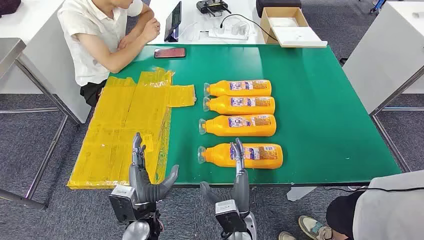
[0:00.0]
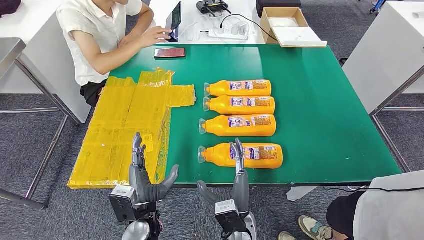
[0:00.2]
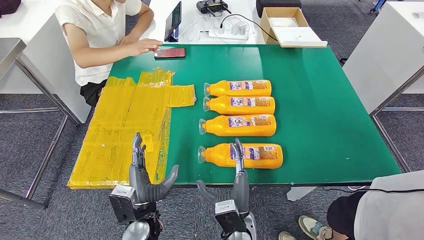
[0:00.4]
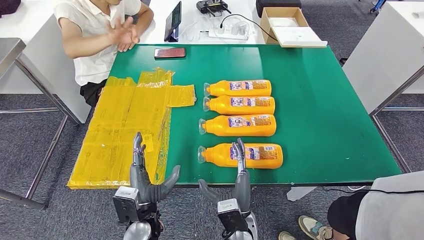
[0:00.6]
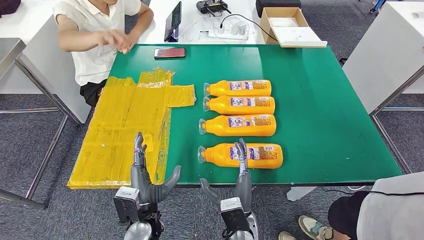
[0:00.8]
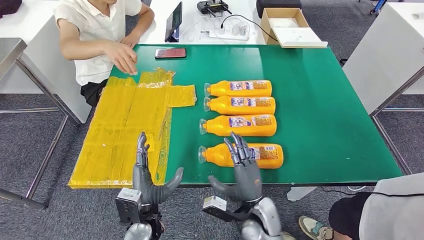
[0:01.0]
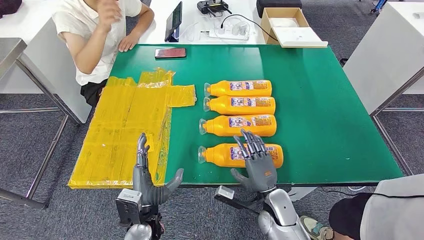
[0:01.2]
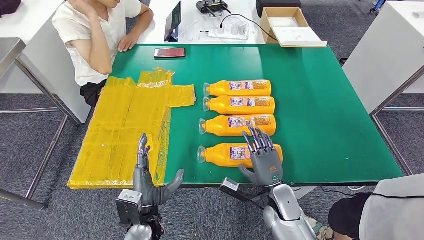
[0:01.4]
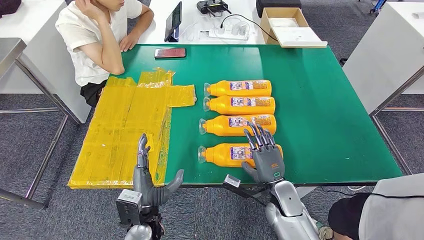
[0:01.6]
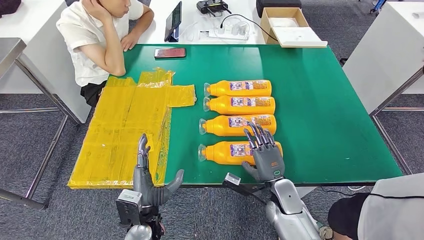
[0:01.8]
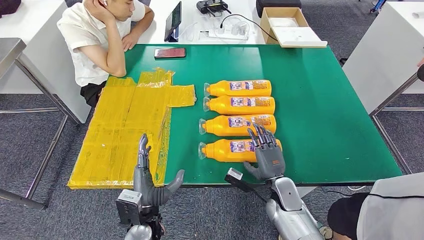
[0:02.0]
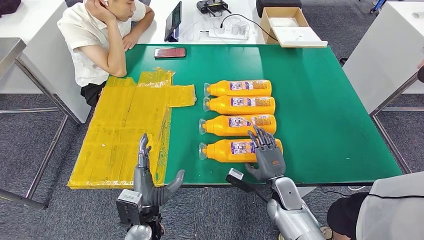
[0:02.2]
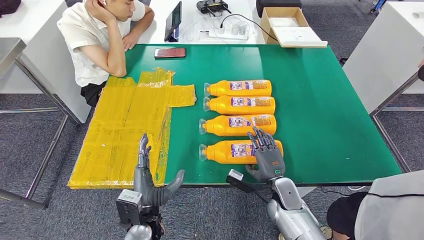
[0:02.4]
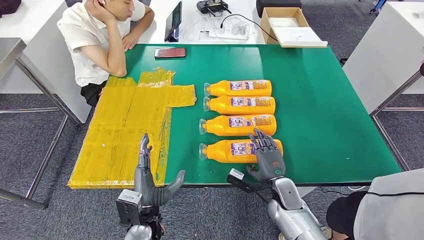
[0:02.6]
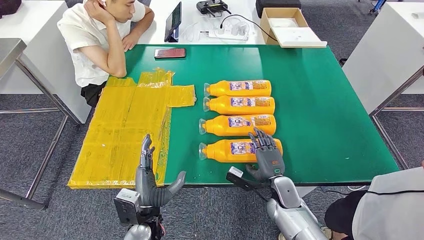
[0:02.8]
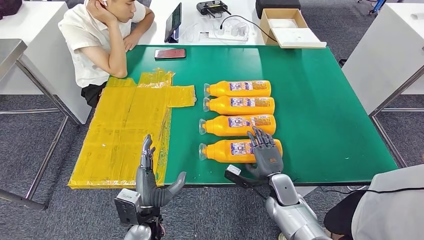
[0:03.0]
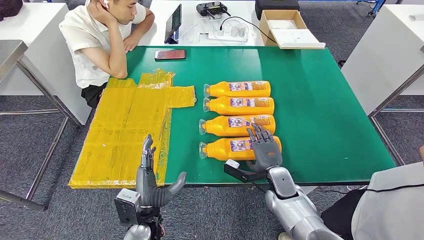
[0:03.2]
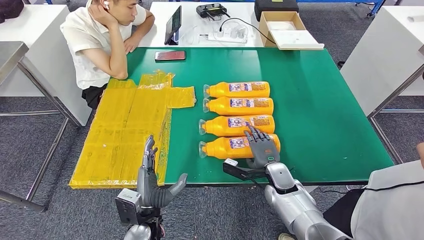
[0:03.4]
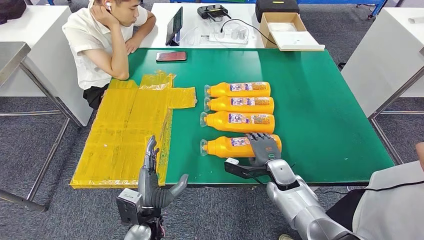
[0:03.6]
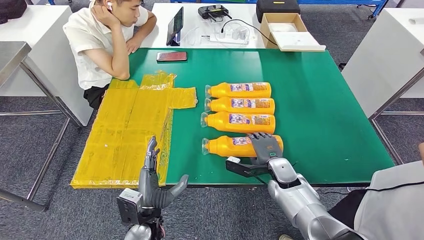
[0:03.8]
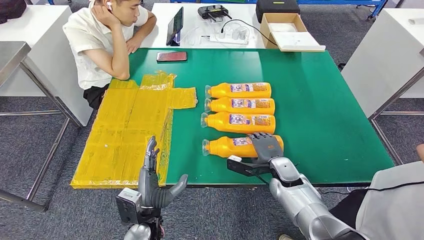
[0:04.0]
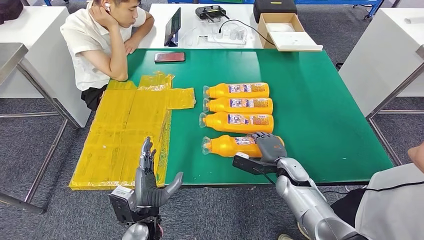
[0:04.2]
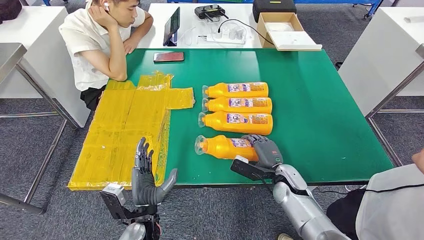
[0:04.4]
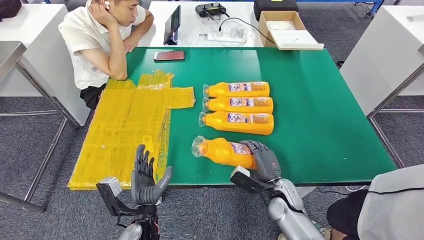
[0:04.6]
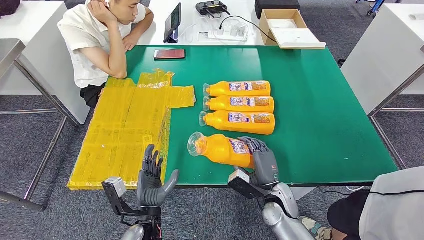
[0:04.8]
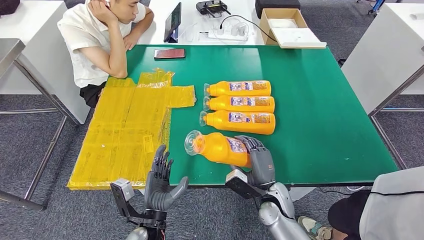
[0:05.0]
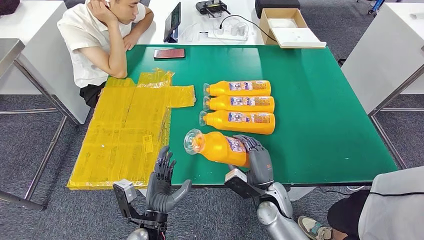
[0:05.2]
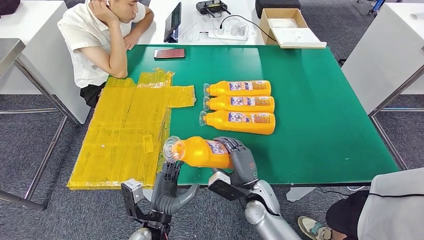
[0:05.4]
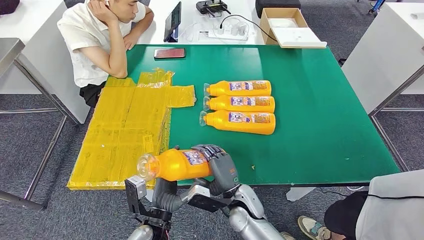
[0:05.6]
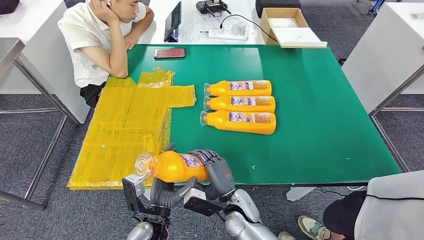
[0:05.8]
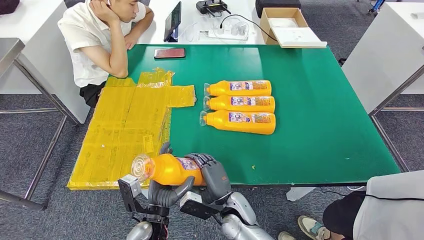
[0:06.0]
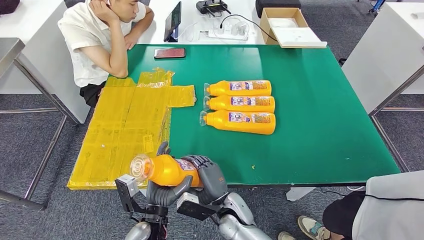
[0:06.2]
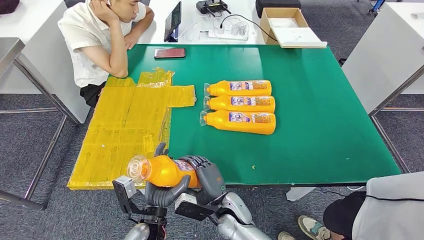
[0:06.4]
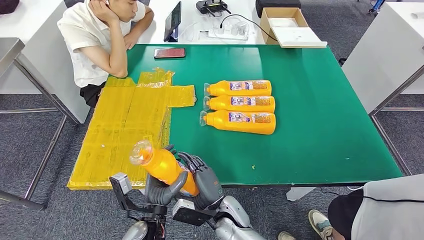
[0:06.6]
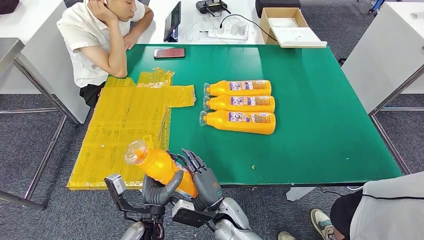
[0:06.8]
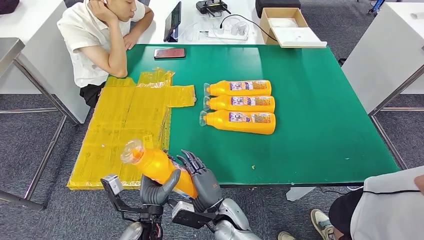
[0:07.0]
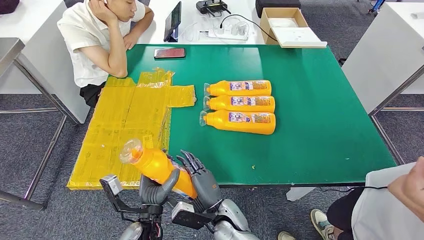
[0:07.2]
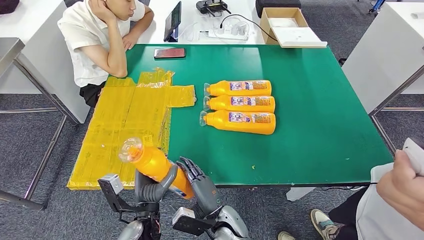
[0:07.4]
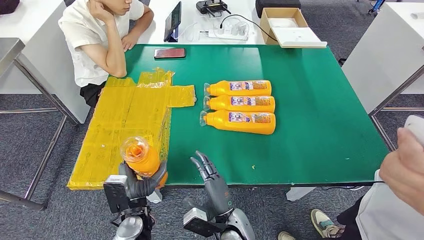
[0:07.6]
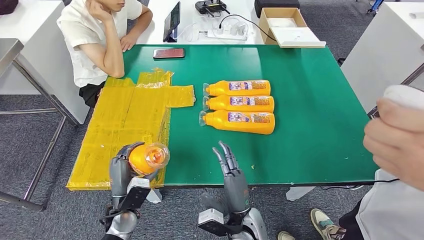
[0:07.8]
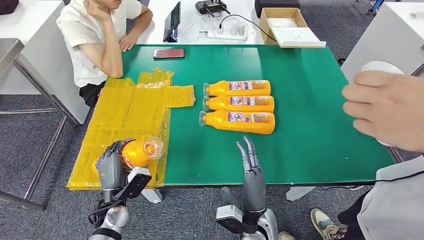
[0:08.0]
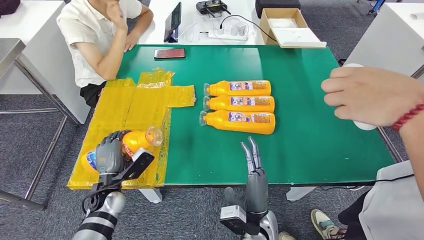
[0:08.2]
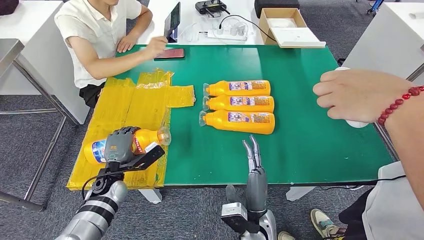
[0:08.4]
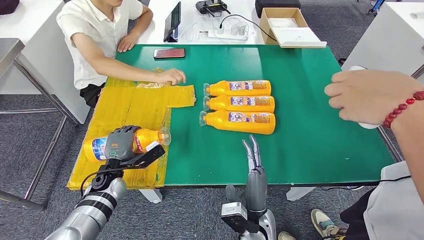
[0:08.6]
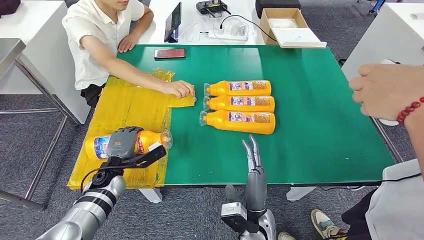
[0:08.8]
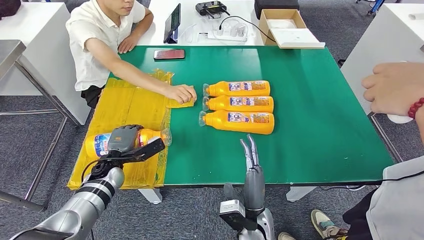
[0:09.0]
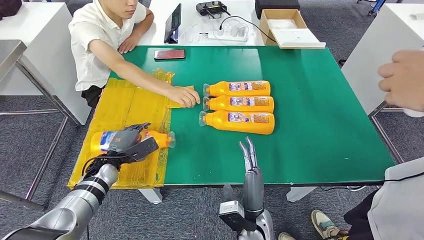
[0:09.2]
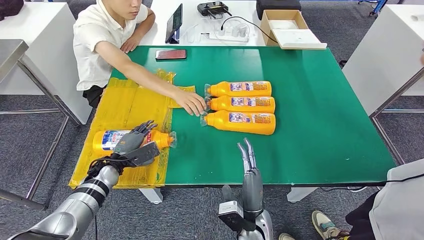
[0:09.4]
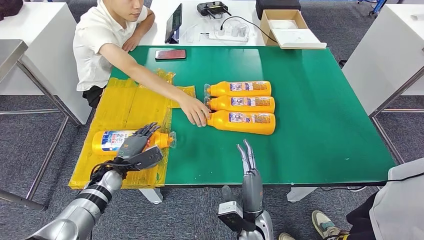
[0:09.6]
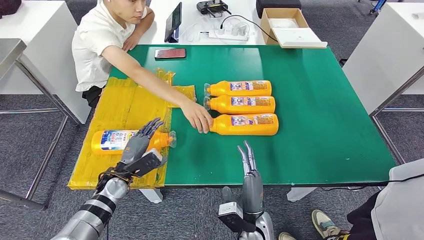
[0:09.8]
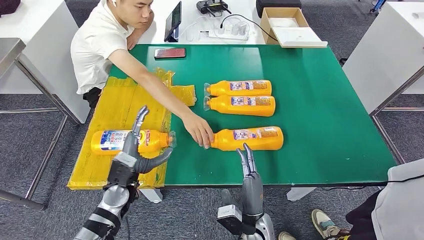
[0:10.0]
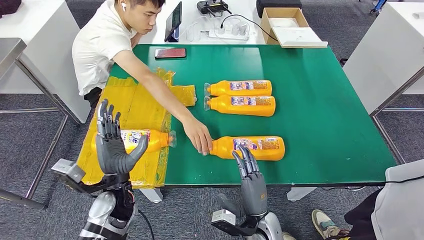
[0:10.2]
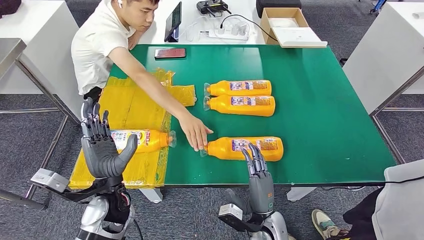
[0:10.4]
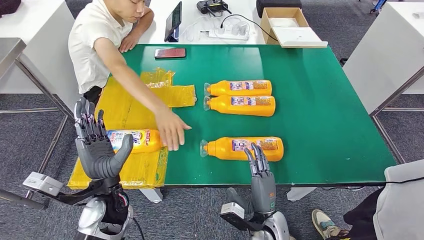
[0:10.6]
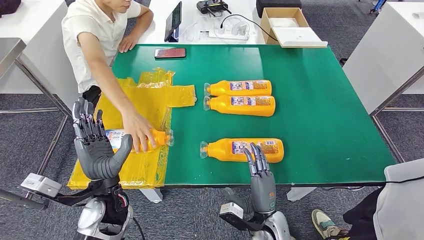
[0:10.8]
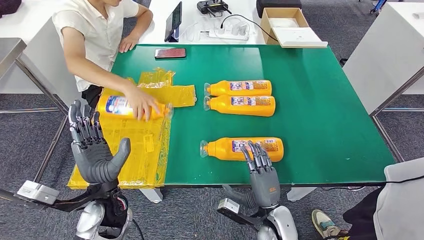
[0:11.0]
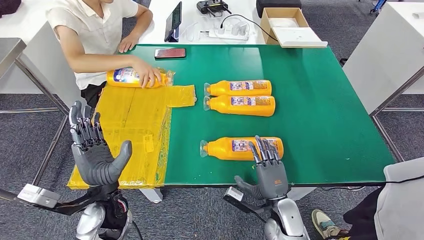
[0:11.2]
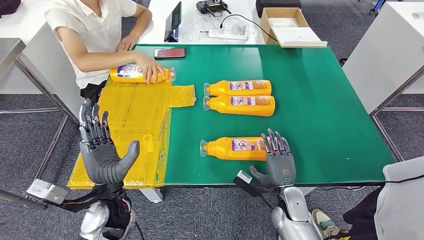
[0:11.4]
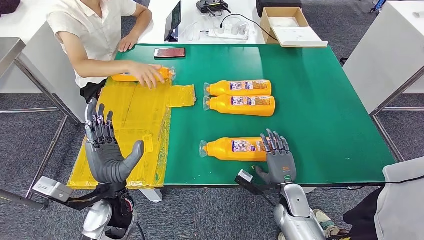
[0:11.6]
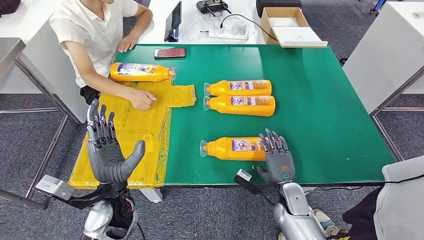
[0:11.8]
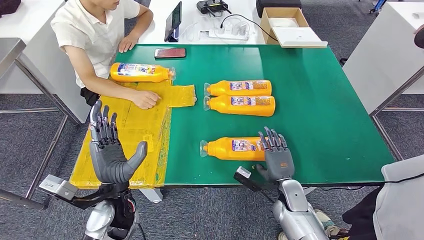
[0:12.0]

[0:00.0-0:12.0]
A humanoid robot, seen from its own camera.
Step, 0:00.0 to 0:05.2: Take the fast-moving consumer goods bottle from the table.
Step, 0:05.4 to 0:10.4: Flip the fast-moving consumer goods bottle to the front side.

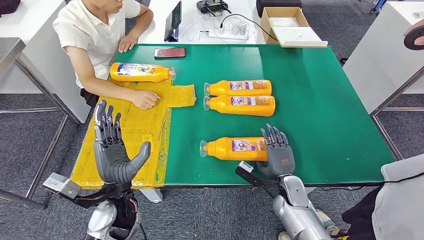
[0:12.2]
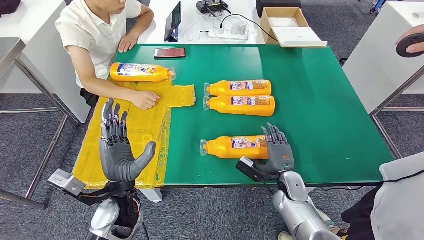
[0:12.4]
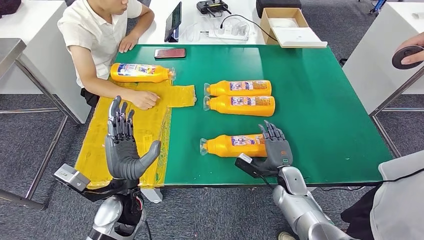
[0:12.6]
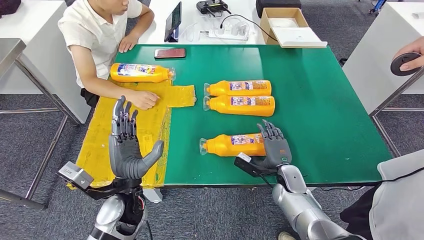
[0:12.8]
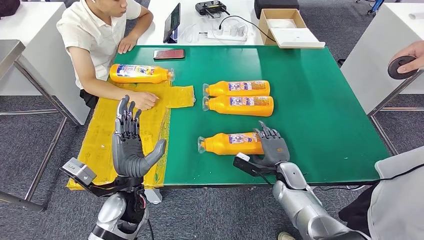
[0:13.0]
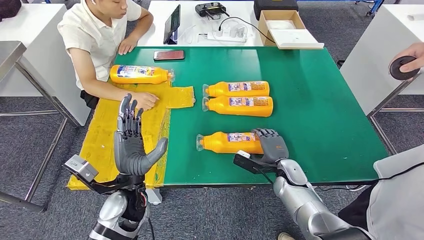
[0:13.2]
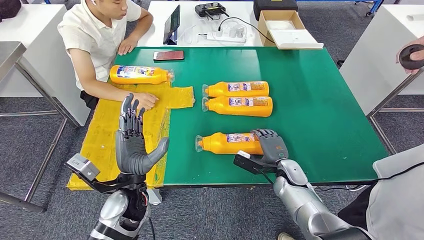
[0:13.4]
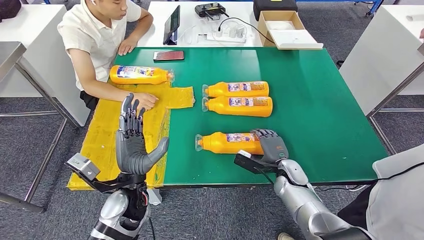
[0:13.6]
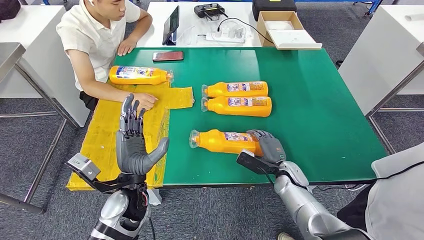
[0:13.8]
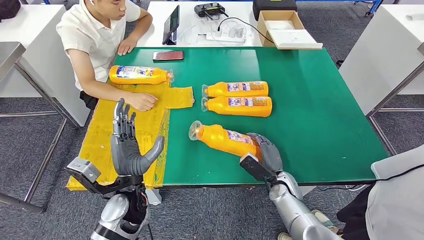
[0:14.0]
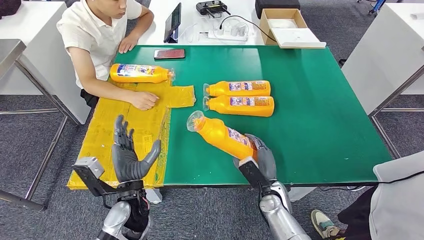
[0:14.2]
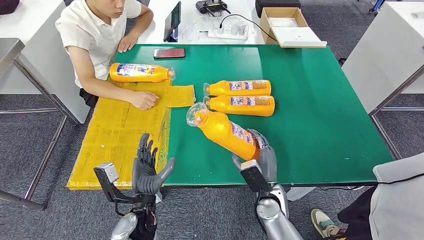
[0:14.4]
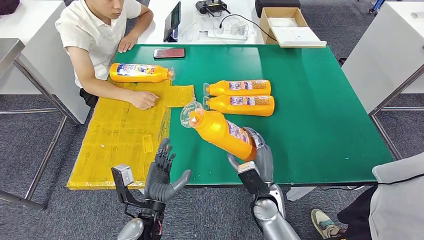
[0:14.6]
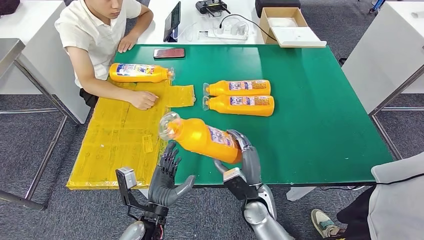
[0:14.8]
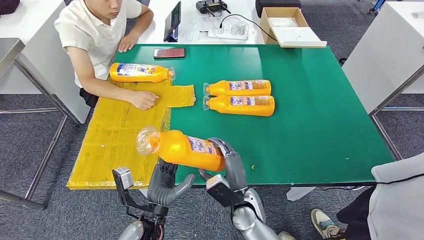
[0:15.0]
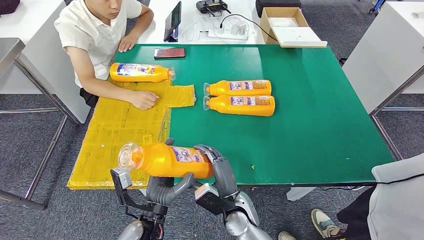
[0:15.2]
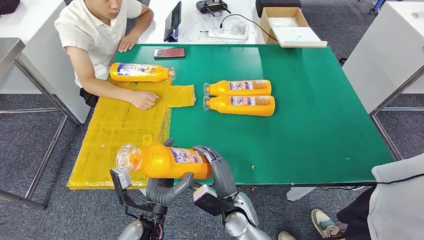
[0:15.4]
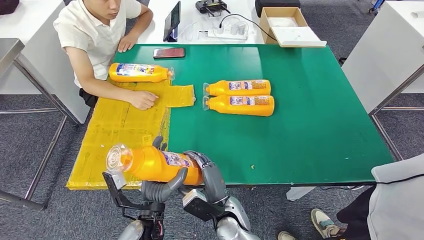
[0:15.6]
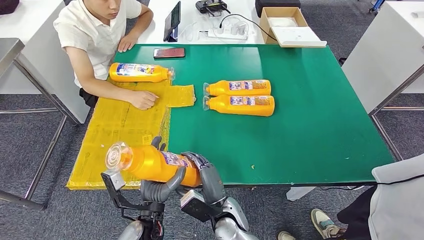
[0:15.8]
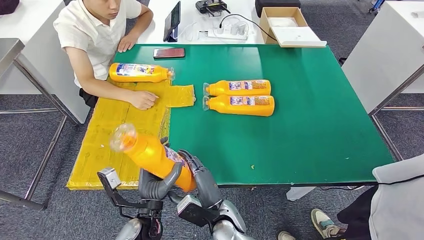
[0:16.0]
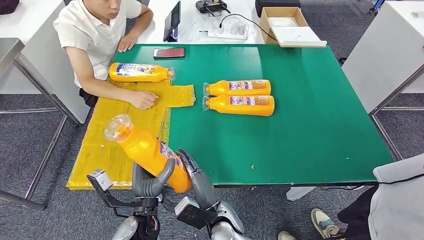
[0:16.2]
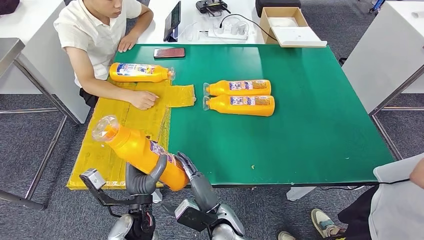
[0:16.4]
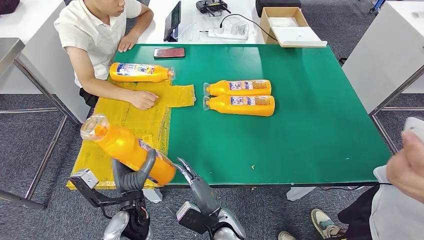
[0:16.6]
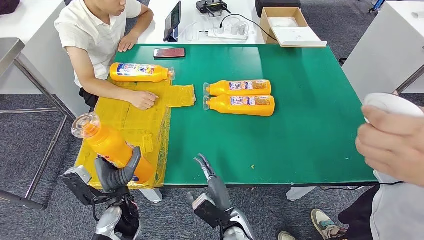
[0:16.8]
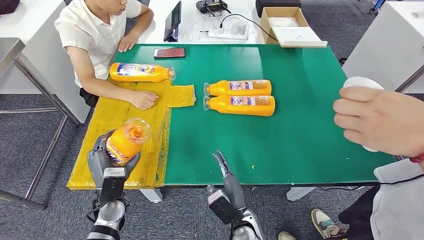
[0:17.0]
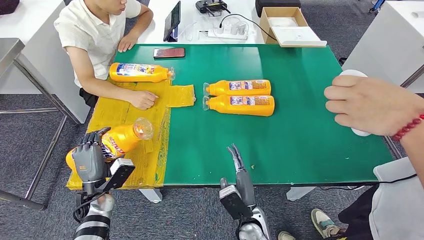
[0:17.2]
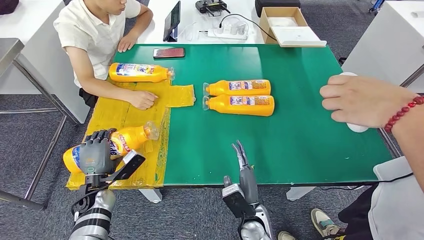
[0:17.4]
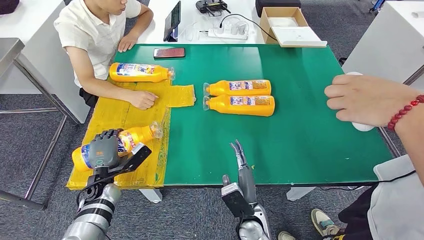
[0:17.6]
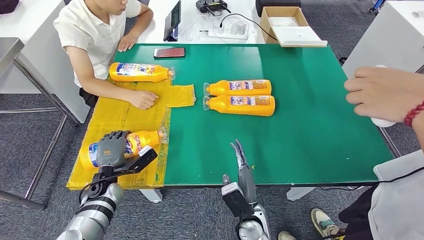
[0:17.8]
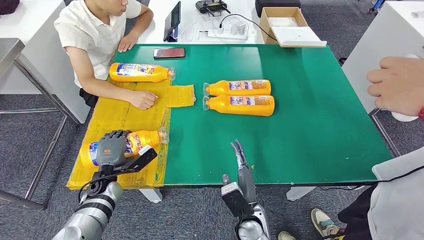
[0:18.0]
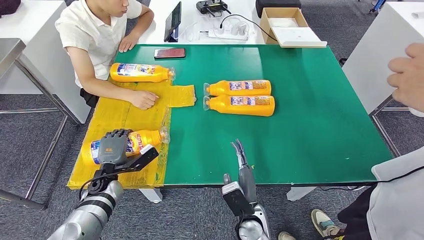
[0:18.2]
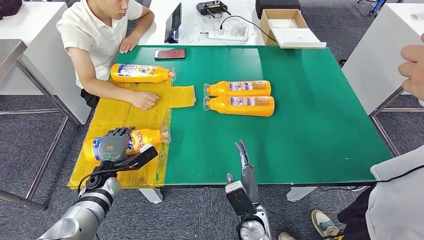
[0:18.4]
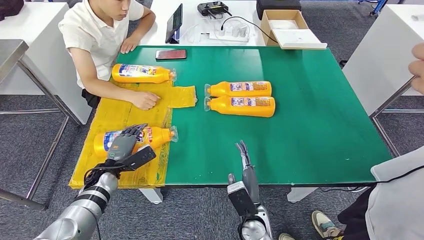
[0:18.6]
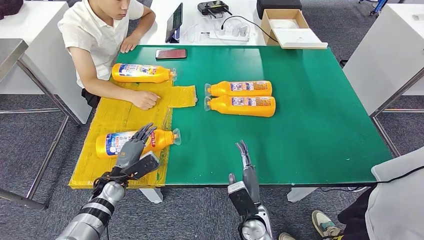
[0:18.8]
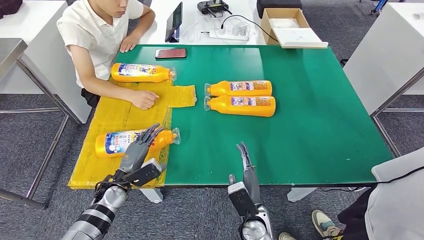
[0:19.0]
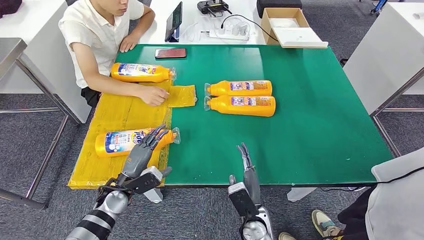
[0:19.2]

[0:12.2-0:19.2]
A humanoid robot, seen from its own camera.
Step, 0:12.2 to 0:15.0: Pick up the fast-moving consumer goods bottle from the table.
0:15.0 to 0:16.4: The right hand moves to the left, approximately 5 cm.
0:16.4 to 0:17.8: The right hand moves to the right, about 10 cm. Meanwhile the left hand is displaced to the left, forward and downward by approximately 20 cm.
0:17.8 to 0:19.2: The left hand shifts by about 5 cm.
